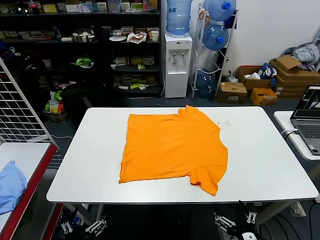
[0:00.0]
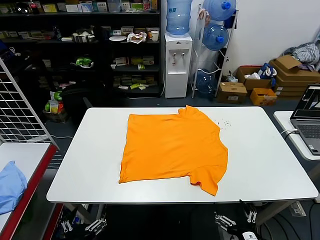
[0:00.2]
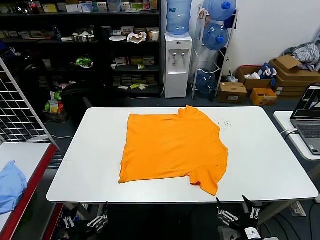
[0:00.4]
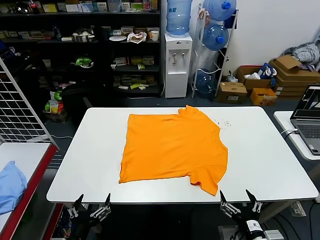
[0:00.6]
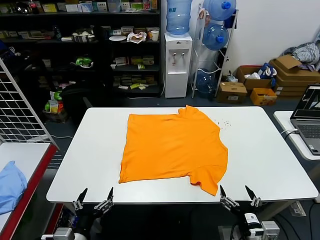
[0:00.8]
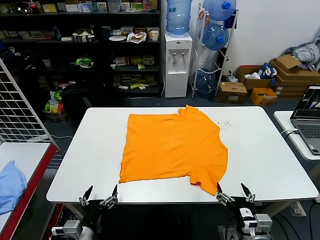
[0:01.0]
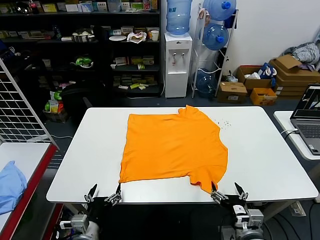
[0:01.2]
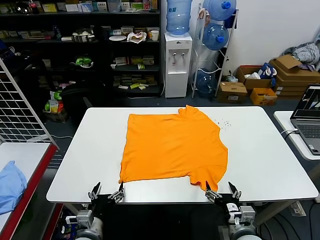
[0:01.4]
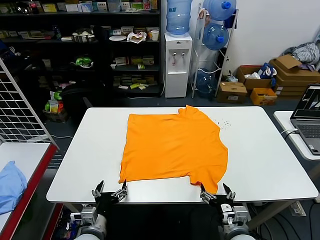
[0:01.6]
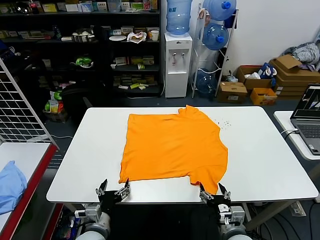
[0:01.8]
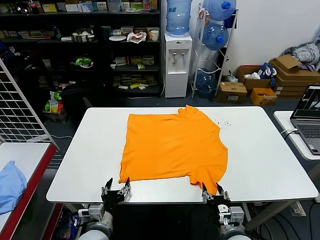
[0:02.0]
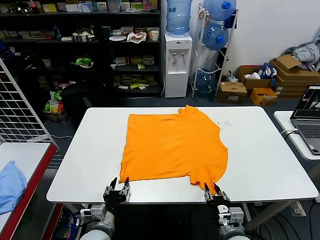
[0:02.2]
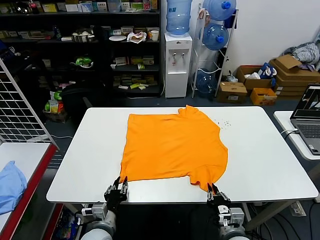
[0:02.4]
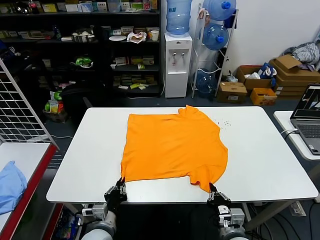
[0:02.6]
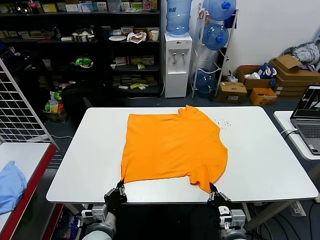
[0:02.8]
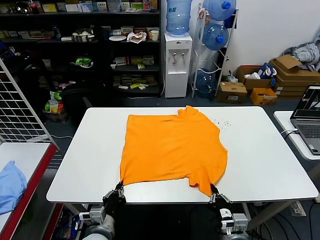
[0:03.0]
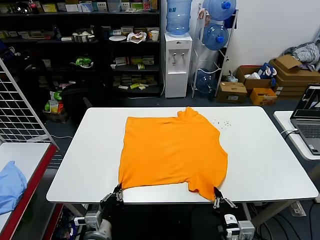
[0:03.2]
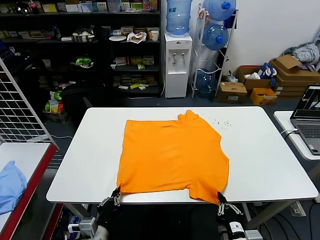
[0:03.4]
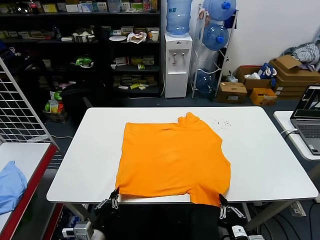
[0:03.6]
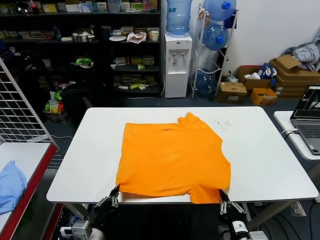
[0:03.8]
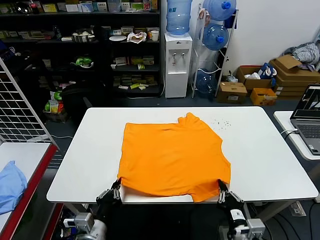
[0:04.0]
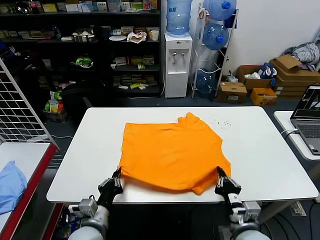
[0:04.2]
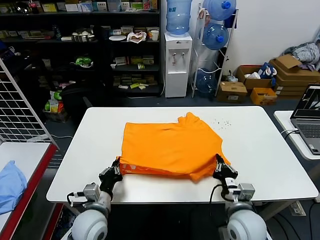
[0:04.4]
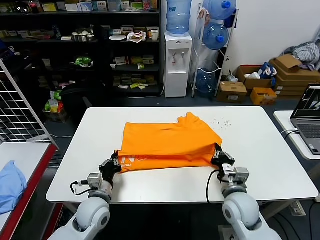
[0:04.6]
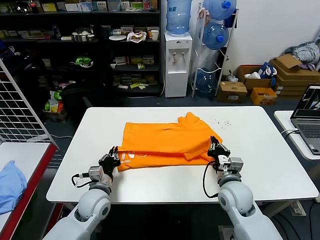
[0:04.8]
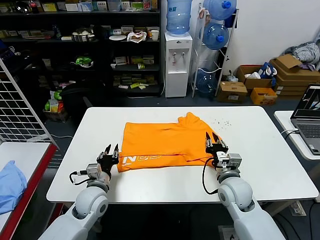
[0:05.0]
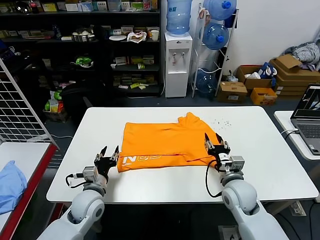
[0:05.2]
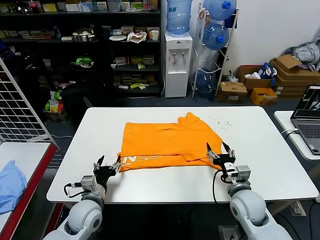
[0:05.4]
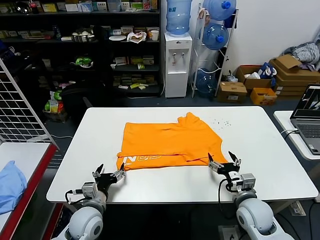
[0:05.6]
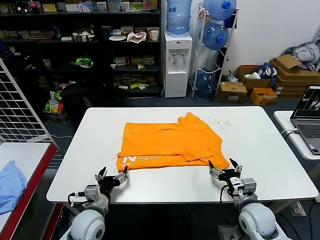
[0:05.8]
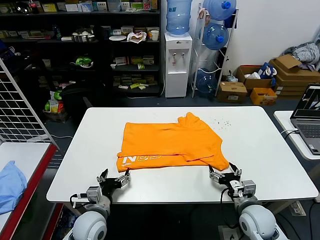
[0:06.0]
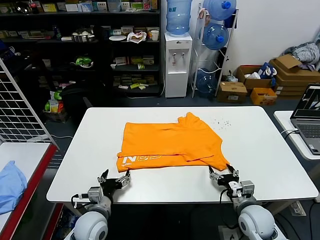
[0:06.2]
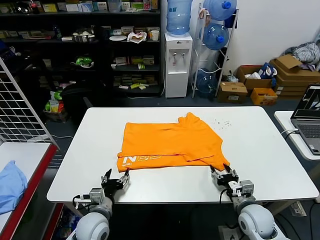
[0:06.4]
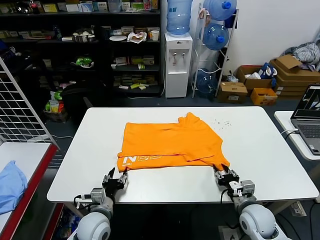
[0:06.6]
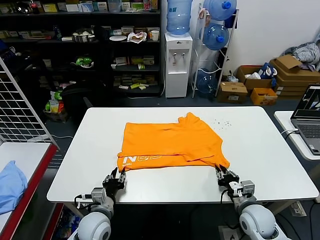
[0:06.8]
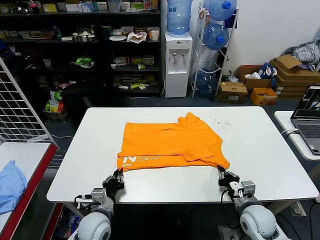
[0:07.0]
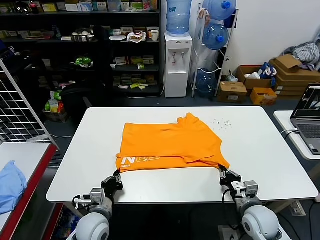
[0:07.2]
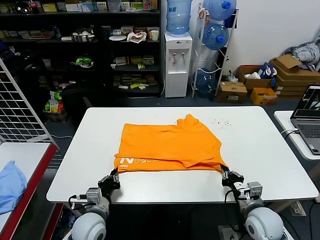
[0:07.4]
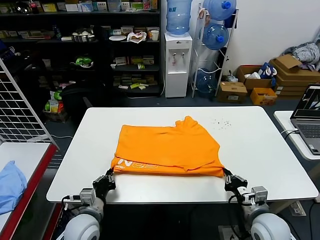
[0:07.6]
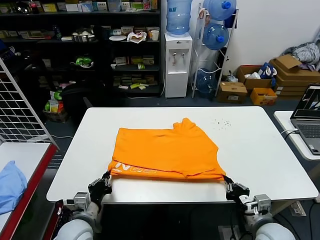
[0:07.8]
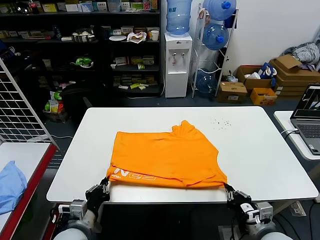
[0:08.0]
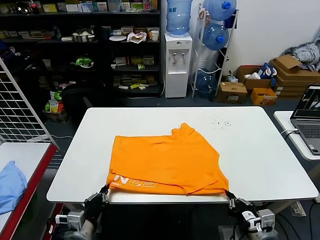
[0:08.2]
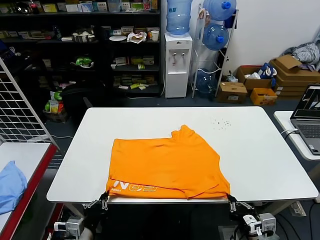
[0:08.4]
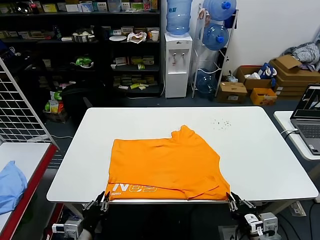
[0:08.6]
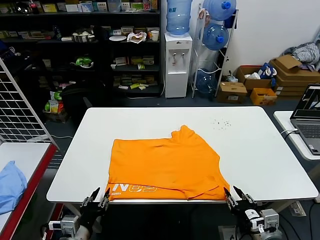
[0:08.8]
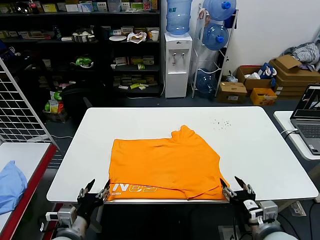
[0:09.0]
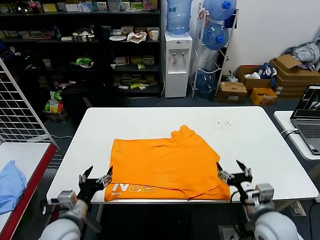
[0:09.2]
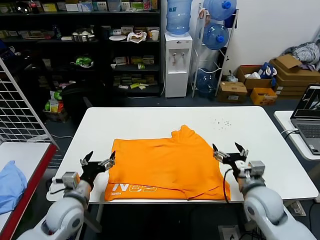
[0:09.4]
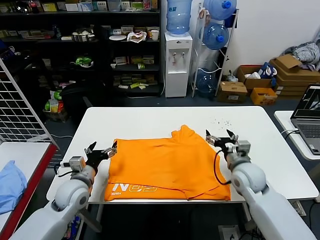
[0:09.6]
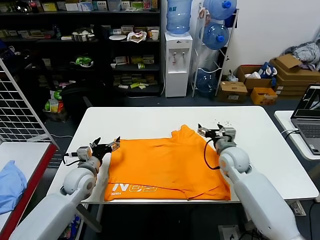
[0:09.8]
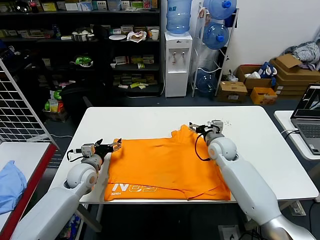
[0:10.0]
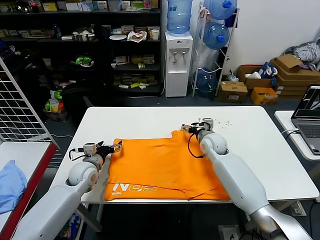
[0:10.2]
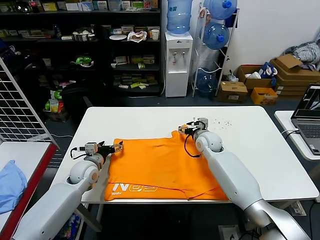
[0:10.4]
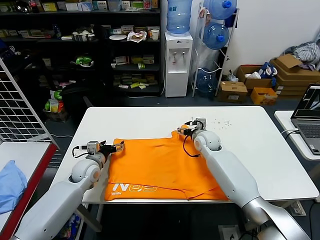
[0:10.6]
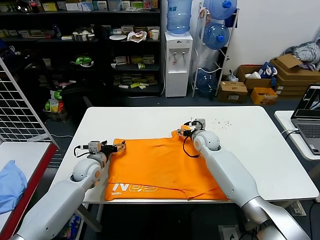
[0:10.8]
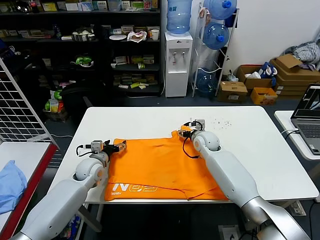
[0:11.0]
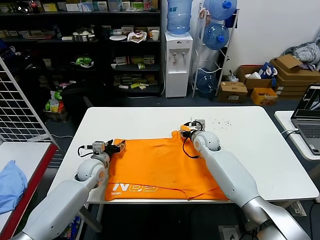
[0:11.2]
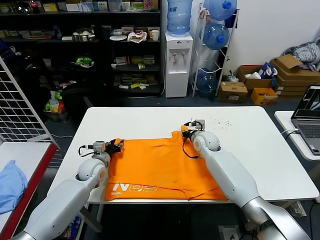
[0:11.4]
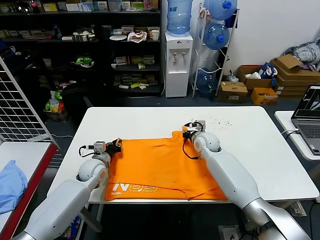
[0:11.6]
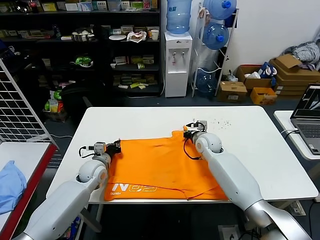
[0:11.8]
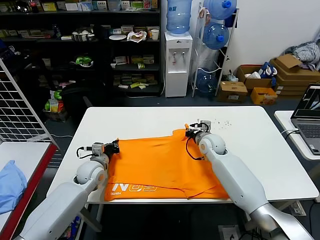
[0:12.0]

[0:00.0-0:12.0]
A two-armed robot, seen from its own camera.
Task of the whole recording: fold and organize the clothes.
Step, 0:00.0 to 0:02.6: use both grippers simultaneously to clamp the lower edge of the clothing fabric.
Step, 0:02.8 to 0:04.8: use both grippers to drag the lower edge of the fabric forward and fold it over the upper edge.
Step, 0:05.0 to 0:08.6: Drag the clothes downward with both gripper.
Step, 0:08.8 to 0:11.6: use both grippers simultaneously to clamp the upper edge of the clothing fabric.
0:01.6 to 0:03.0: The right gripper closes up. The left gripper closes.
0:03.0 to 0:04.4: The left gripper moves upward, approximately 5 cm, and moves roughly 5 cm backward and comes back; the right gripper moves forward, approximately 10 cm.
0:04.4 to 0:06.0: The left gripper goes forward and returns, approximately 10 cm each way, and opens its fingers; the right gripper travels to the right by some 5 cm, goes forward and returns, approximately 10 cm each way, and opens its fingers.
0:06.0 to 0:07.6: The right gripper closes its fingers; the left gripper closes.
0:07.6 to 0:09.0: Both grippers travel together backward and upward, approximately 10 cm. The right gripper opens its fingers, while the left gripper opens.
0:09.0 to 0:10.4: Both grippers travel together forward, approximately 30 cm. The left gripper opens.
0:10.4 to 0:12.0: The right gripper closes, while the left gripper closes up.

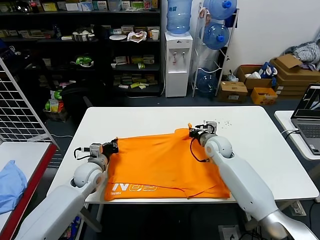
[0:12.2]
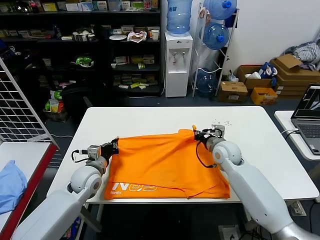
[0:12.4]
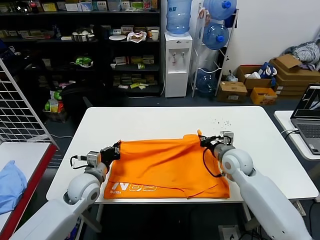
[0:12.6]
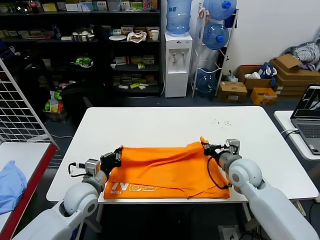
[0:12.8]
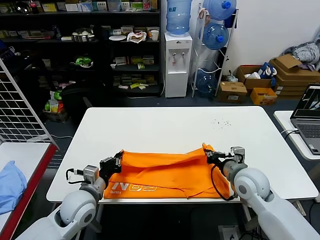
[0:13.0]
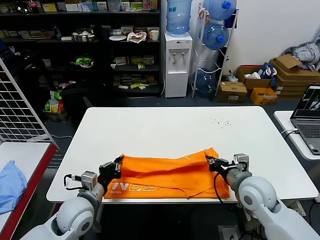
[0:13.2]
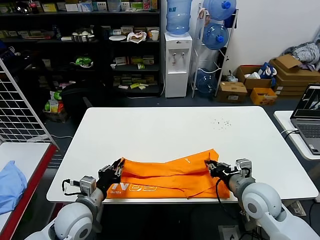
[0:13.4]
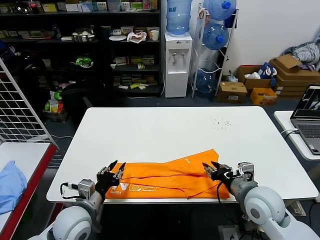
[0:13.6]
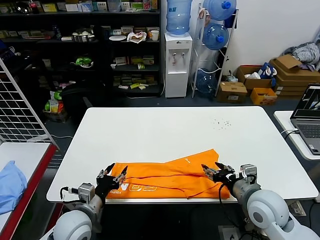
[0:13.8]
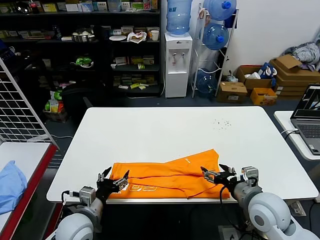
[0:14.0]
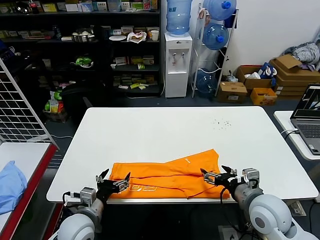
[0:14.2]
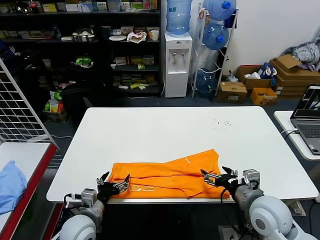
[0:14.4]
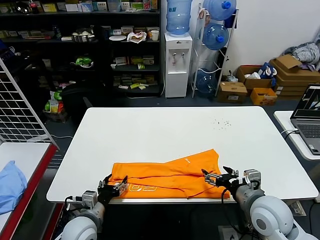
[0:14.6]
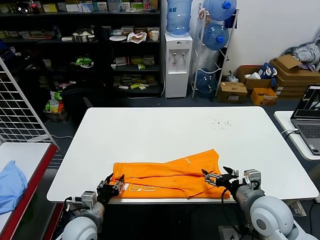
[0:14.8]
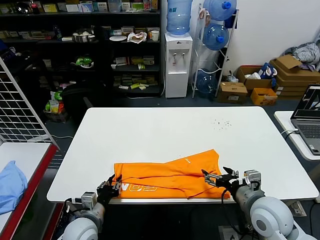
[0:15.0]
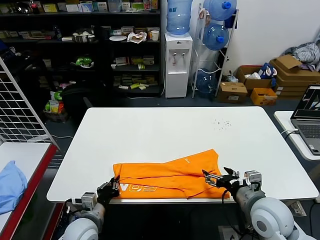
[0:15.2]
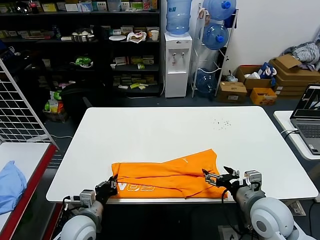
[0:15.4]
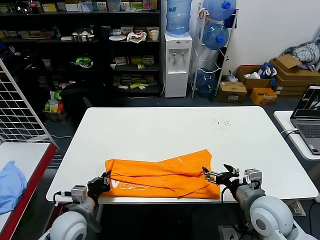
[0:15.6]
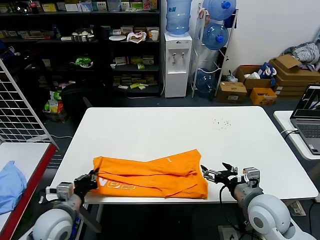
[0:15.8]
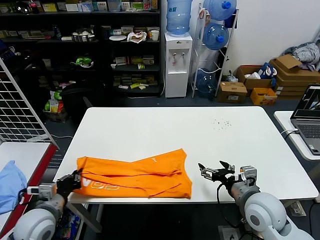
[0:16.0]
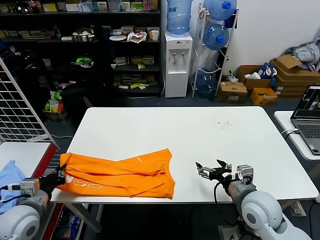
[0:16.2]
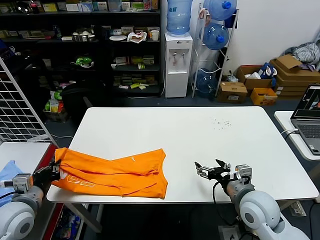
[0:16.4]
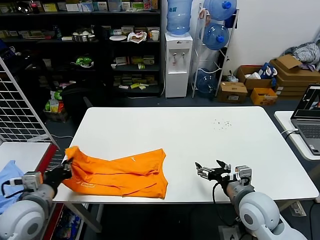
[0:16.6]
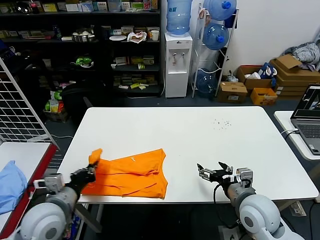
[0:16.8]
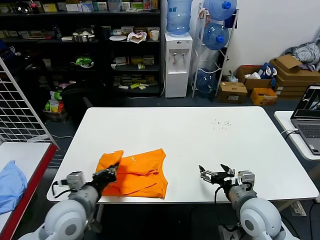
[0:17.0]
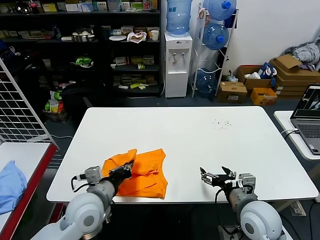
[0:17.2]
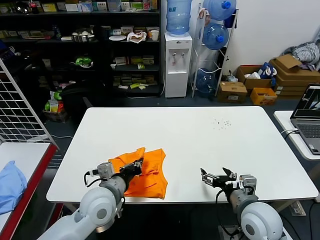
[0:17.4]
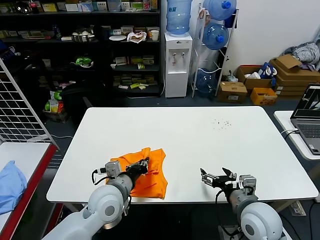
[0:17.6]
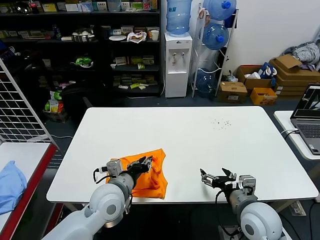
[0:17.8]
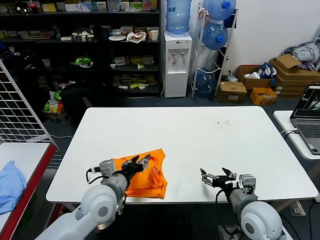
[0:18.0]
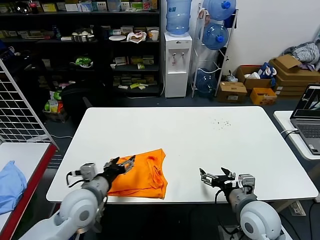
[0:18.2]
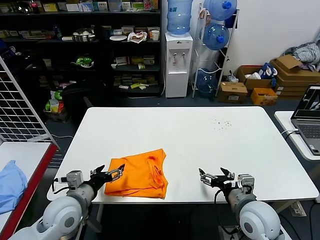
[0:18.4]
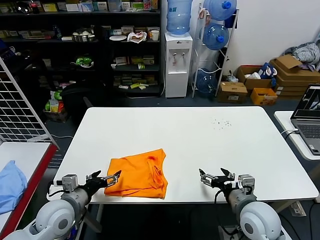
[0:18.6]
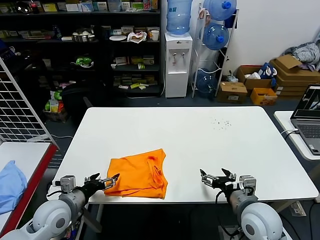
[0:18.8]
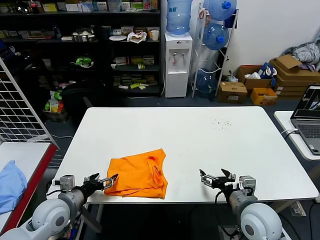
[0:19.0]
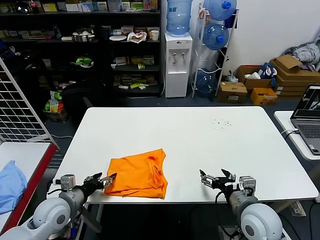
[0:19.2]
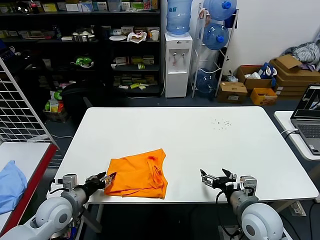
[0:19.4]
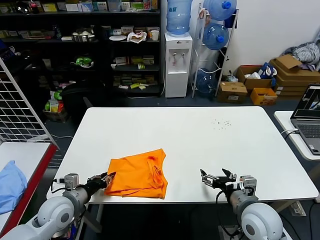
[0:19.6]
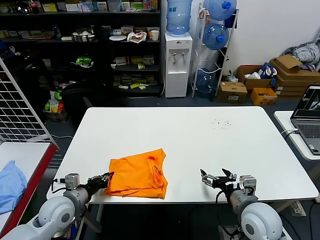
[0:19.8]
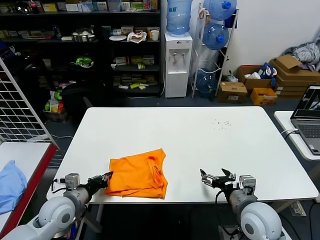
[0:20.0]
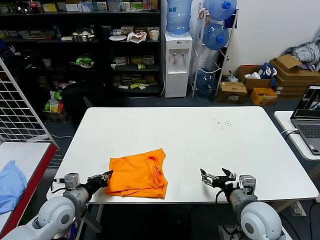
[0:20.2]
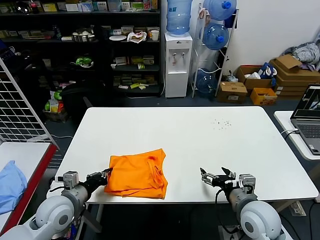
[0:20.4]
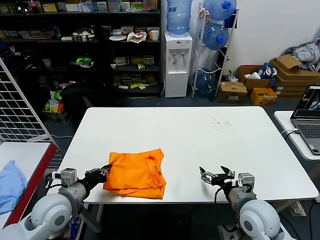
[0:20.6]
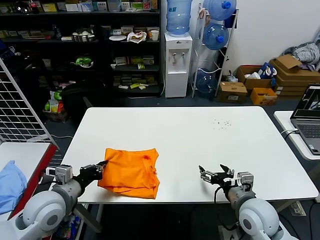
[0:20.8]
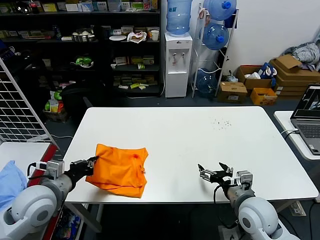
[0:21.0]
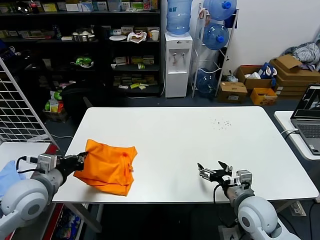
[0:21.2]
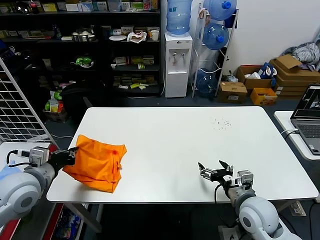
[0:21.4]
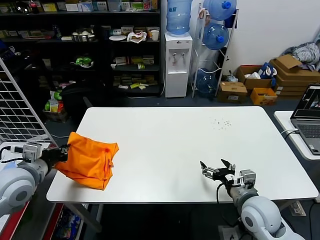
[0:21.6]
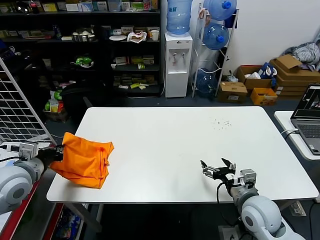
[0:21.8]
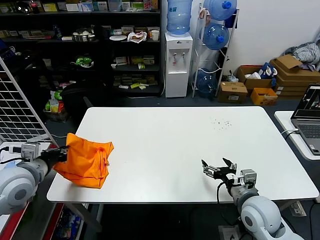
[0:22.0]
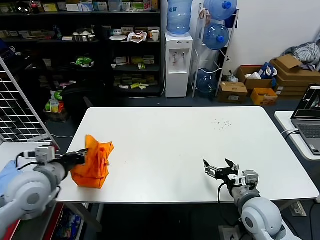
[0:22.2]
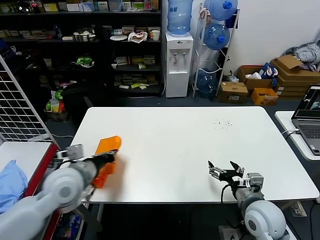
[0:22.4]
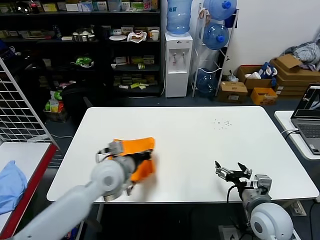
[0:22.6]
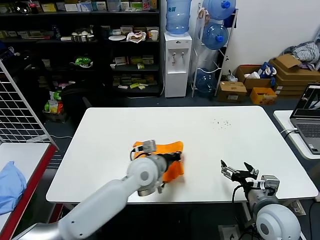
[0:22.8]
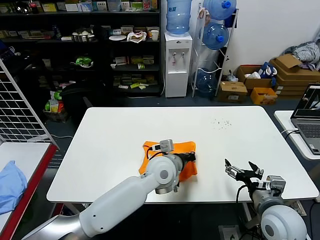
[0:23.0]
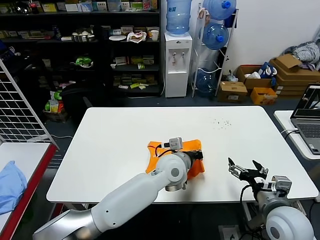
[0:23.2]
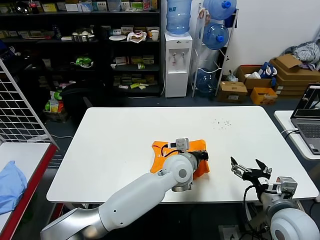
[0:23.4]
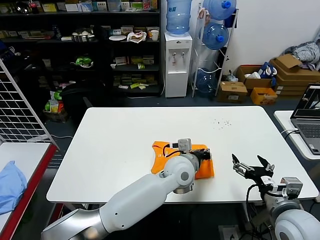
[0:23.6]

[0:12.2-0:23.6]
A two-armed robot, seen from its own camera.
Task of the whole recording: fold and organize the clothes.
Step, 0:12.2 to 0:13.4: use both grippers to drag the upper edge of the fabric backward and fold it over the lower edge.
Step, 0:13.6 to 0:15.2: use the left gripper to clamp the left edge of the fabric.
Step, 0:15.4 to 0:17.8: use the left gripper to drag the left edge of the fabric to the left and folds it over the right edge.
Step, 0:18.0 to 0:23.4: Flip the folded clothes over with left gripper.
0:12.2 to 0:13.6: Both grippers move backward, about 20 cm. The right gripper opens, while the left gripper opens its fingers.
0:13.6 to 0:15.0: The right gripper opens its fingers. Meanwhile the left gripper is displaced downward by roughly 5 cm, and opens, then closes again.
0:15.0 to 0:16.4: The left gripper heads to the left and upward, covering some 20 cm.
0:16.4 to 0:17.8: The left gripper moves to the right, approximately 25 cm.
0:17.8 to 0:19.4: The left gripper is displaced to the left by some 15 cm, and opens.
0:19.4 to 0:20.8: The left gripper moves upward, about 5 cm, and closes.
0:20.8 to 0:22.2: The left gripper is displaced upward by about 10 cm.
0:22.2 to 0:23.6: The left gripper moves to the right, approximately 40 cm. The right gripper is displaced upward and backward by roughly 10 cm.
